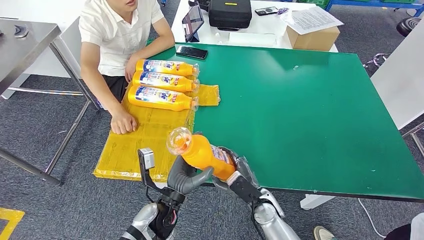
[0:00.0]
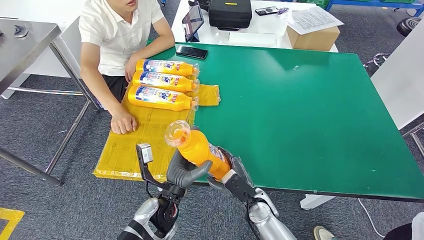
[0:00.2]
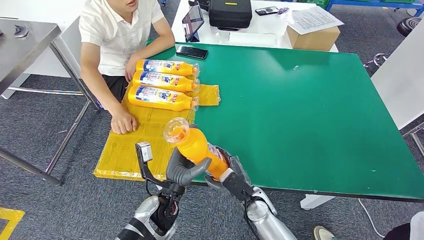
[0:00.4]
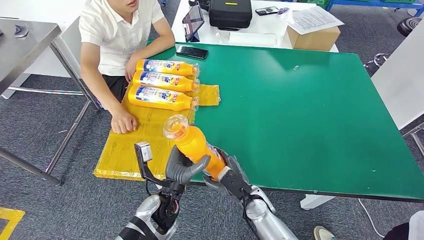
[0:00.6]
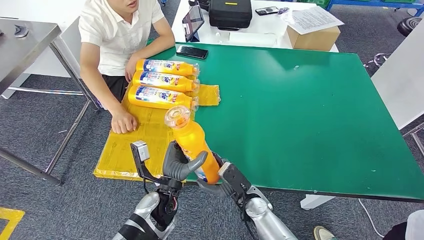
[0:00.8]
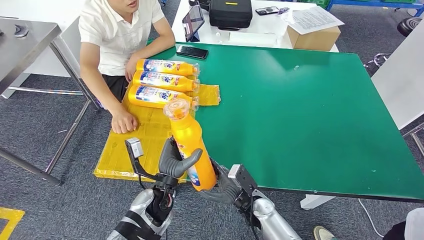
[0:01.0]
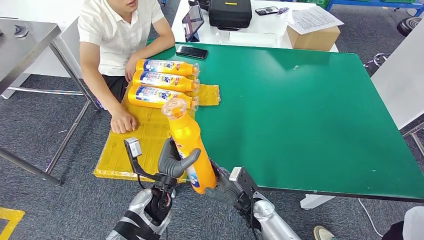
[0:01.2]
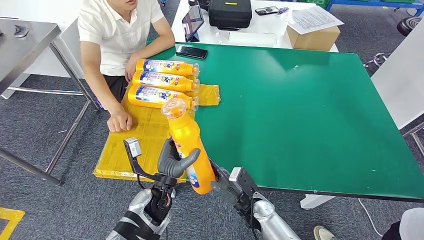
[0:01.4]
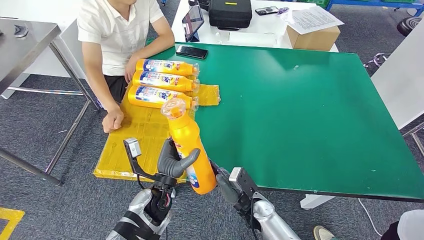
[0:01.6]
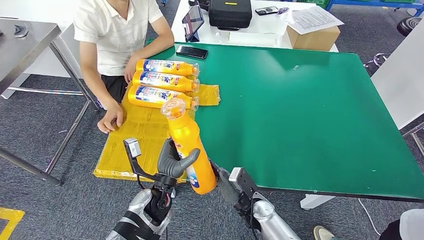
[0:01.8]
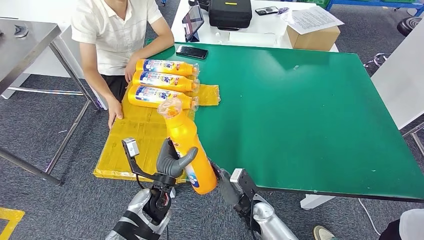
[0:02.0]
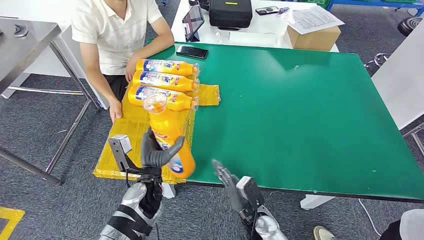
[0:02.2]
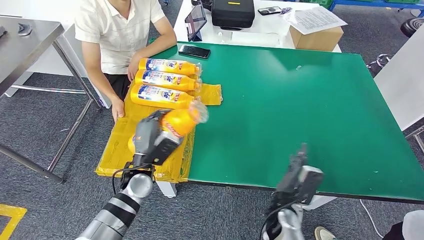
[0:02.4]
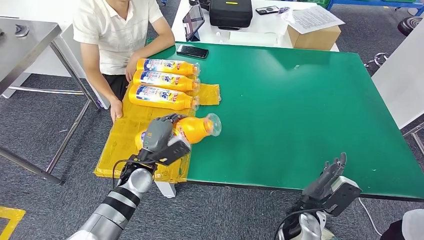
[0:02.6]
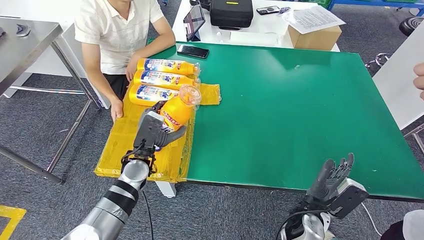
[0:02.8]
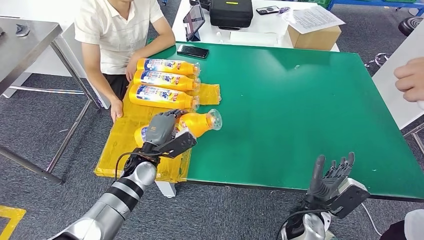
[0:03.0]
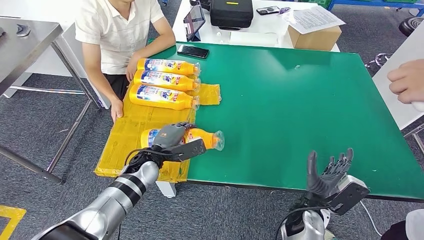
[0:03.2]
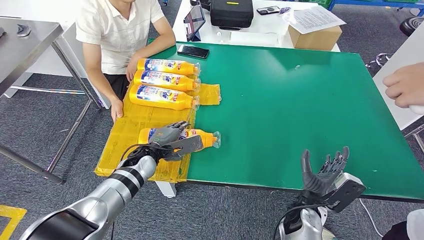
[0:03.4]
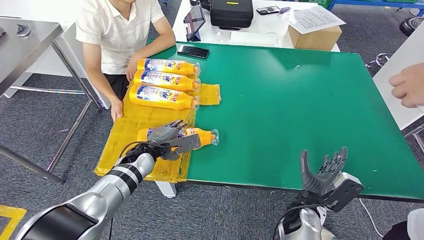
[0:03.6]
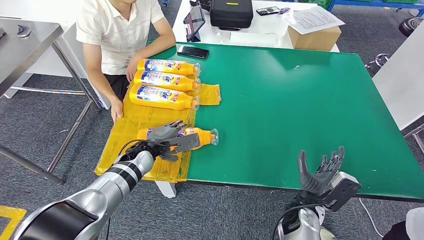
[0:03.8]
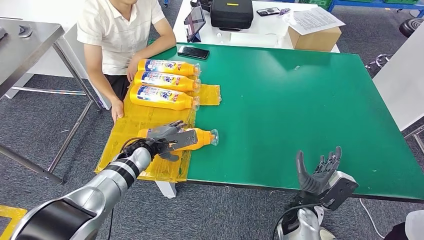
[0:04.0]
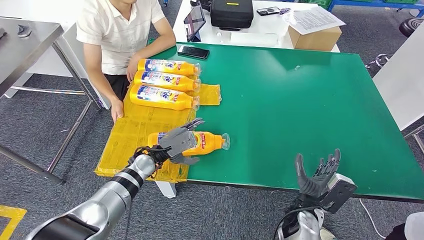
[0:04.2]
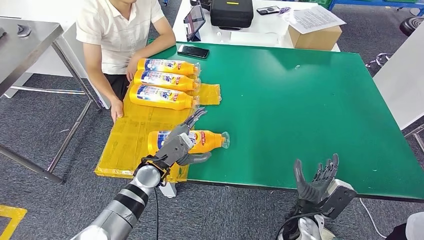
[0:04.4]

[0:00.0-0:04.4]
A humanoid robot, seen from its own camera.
Step, 0:00.0 to 0:04.4: Flip the fast-moving consumer goods bottle to the front side.
